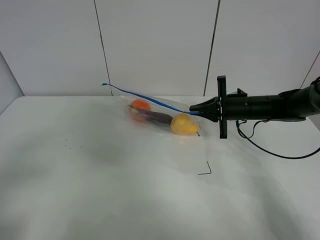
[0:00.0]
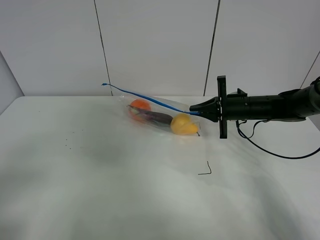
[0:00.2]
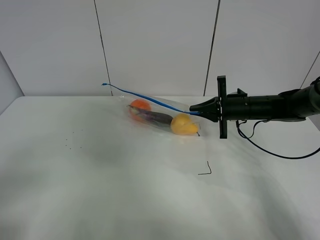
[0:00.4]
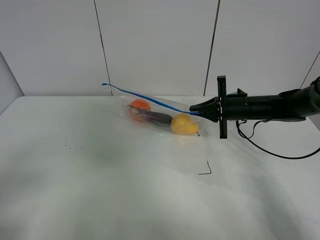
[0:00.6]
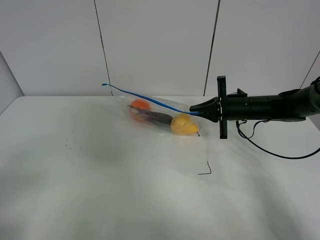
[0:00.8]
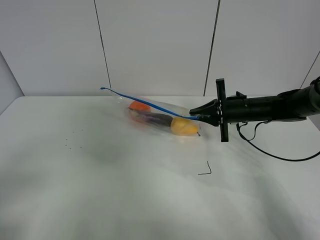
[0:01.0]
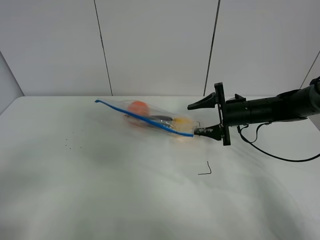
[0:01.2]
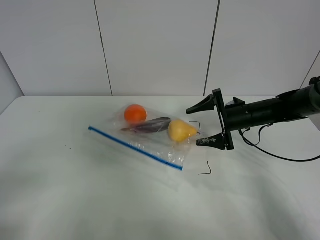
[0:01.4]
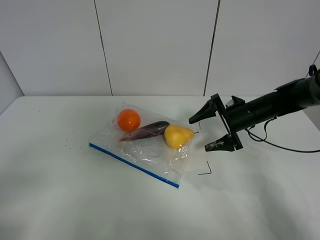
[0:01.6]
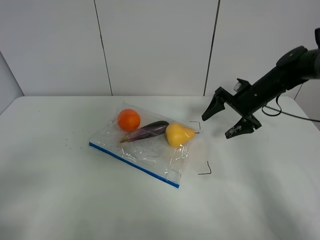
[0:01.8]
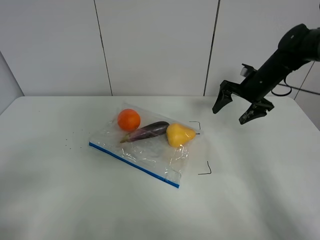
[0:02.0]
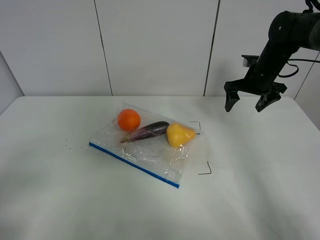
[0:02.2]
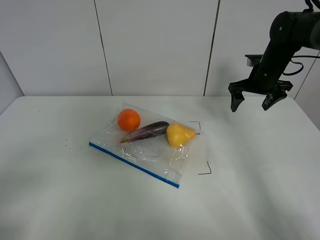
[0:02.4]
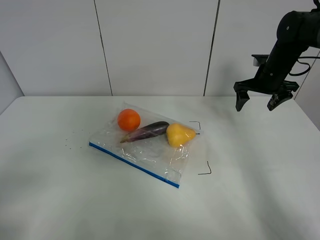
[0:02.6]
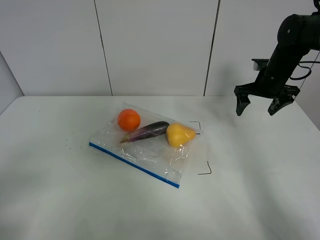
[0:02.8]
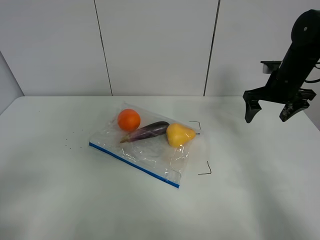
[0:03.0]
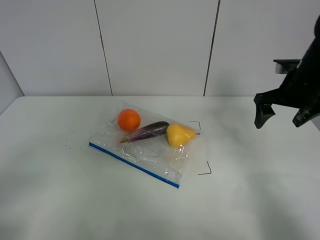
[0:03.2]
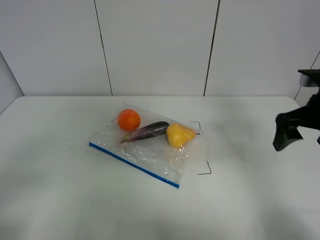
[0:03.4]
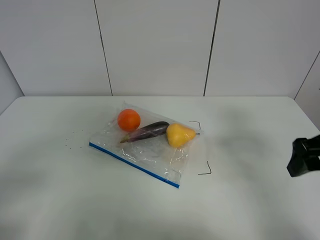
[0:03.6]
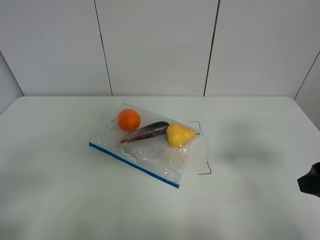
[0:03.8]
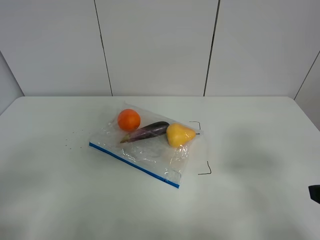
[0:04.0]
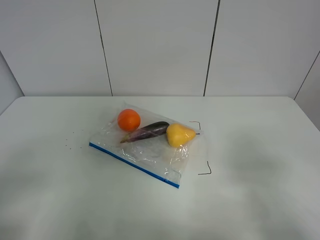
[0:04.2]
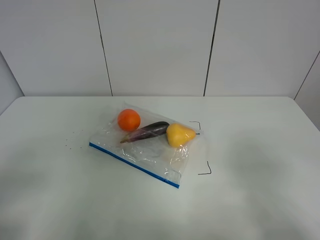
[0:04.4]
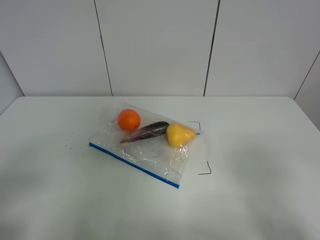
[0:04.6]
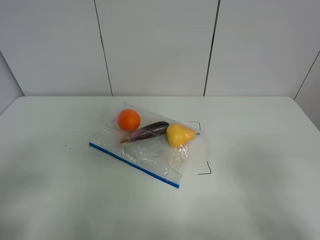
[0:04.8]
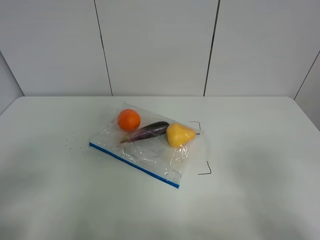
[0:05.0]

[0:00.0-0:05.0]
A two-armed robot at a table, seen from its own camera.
0:00.0 to 0:01.6: The right gripper opens.
0:01.6 to 0:03.4: The right gripper travels backward, upward and to the right by approximately 20 cm.
0:03.4 to 0:05.0: The right gripper goes approximately 25 cm backward.

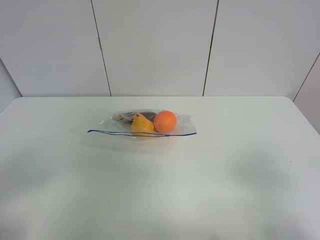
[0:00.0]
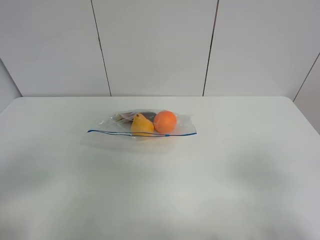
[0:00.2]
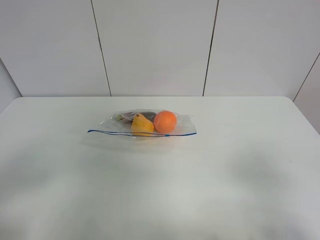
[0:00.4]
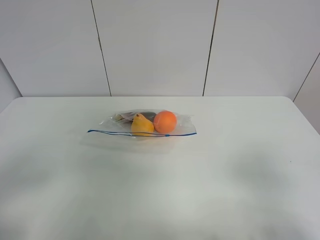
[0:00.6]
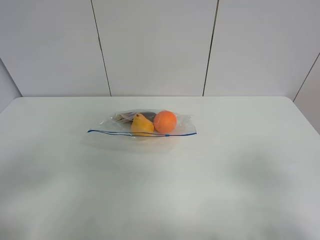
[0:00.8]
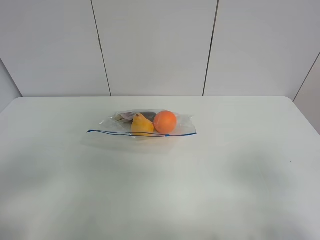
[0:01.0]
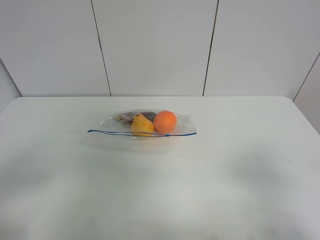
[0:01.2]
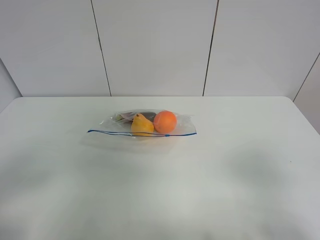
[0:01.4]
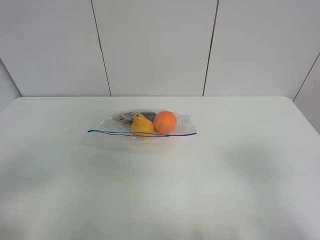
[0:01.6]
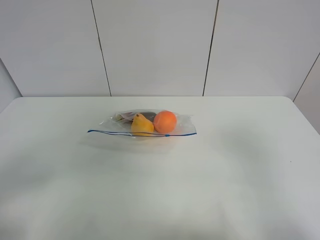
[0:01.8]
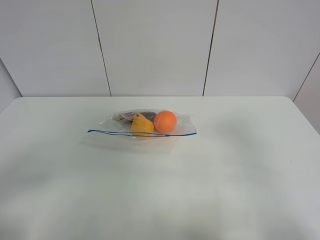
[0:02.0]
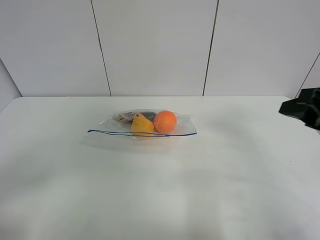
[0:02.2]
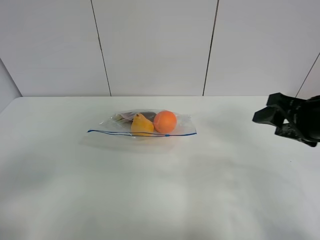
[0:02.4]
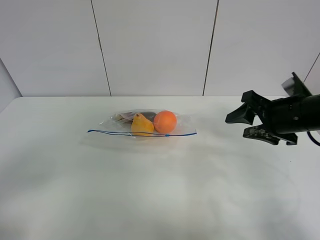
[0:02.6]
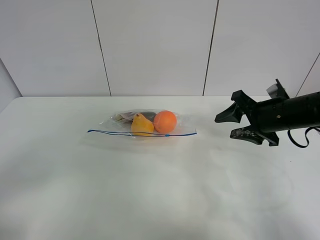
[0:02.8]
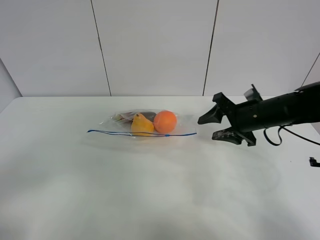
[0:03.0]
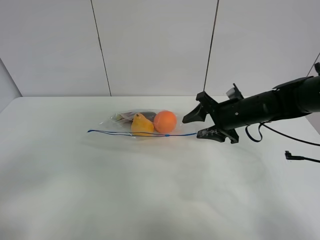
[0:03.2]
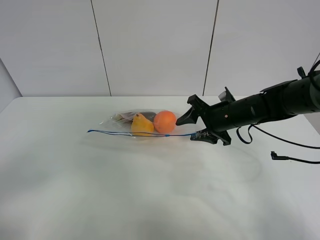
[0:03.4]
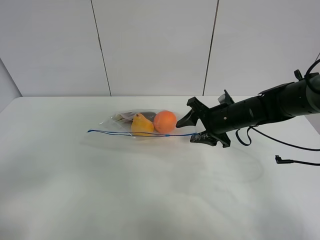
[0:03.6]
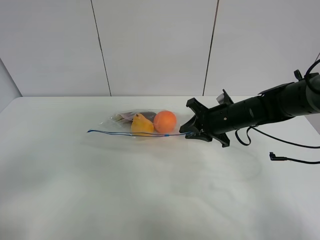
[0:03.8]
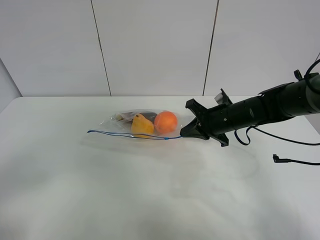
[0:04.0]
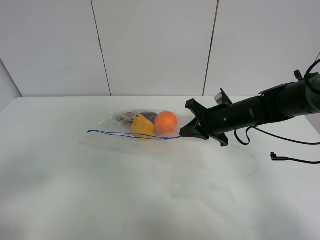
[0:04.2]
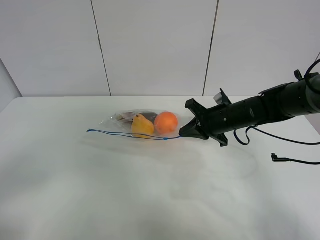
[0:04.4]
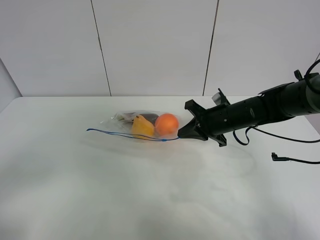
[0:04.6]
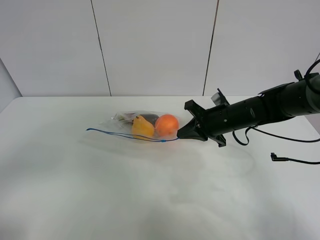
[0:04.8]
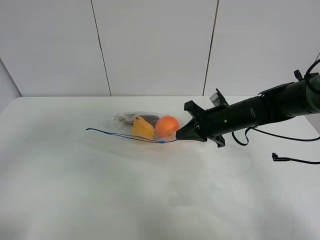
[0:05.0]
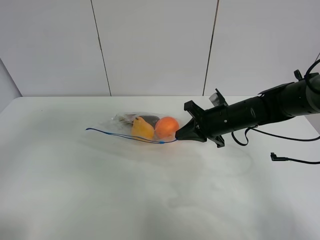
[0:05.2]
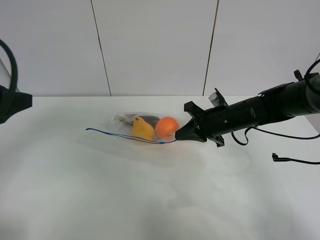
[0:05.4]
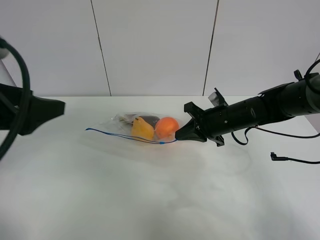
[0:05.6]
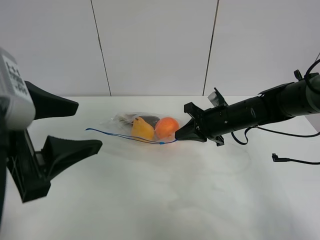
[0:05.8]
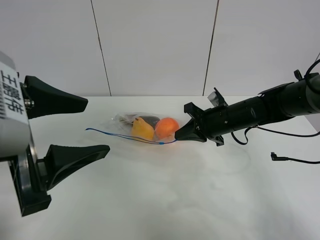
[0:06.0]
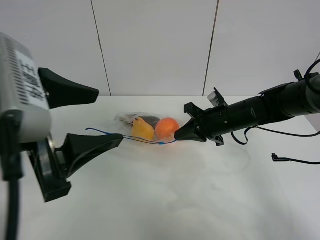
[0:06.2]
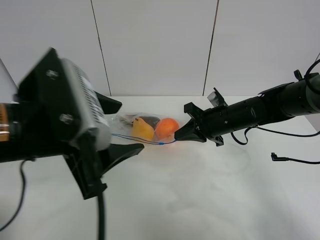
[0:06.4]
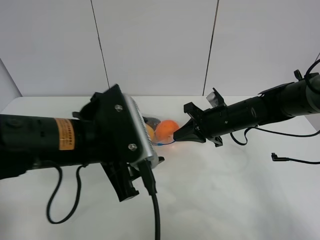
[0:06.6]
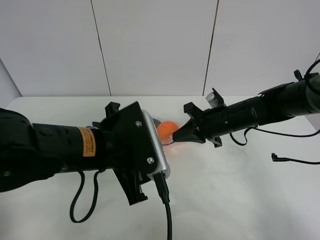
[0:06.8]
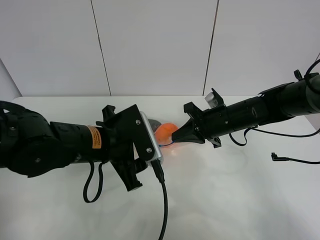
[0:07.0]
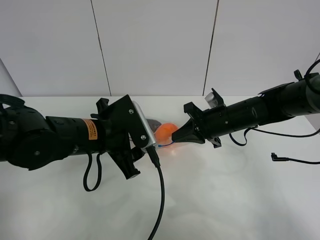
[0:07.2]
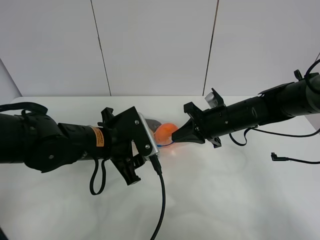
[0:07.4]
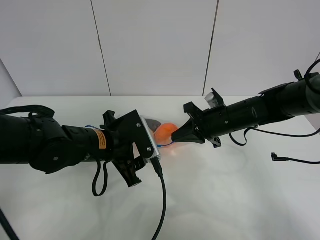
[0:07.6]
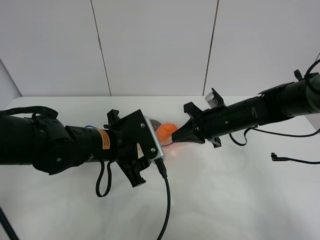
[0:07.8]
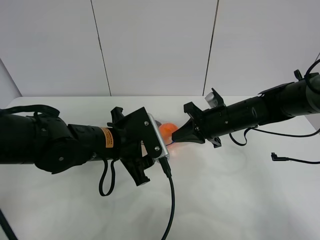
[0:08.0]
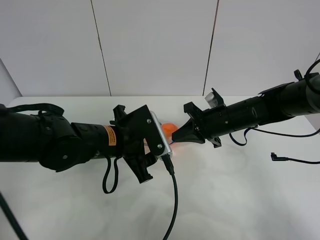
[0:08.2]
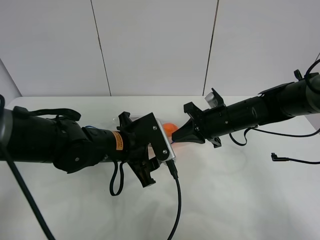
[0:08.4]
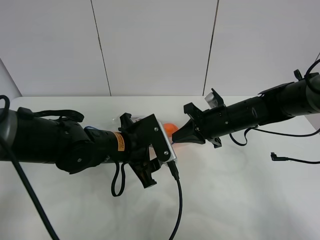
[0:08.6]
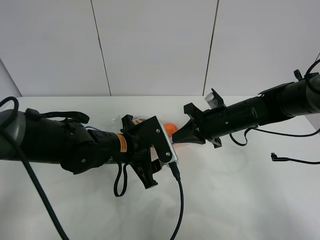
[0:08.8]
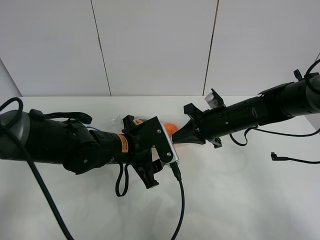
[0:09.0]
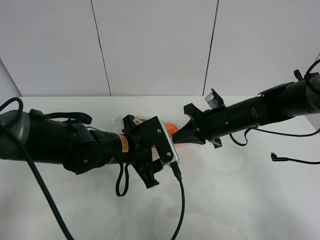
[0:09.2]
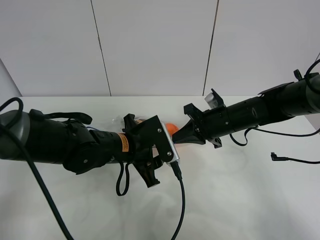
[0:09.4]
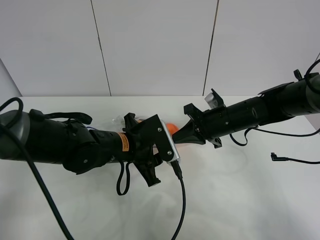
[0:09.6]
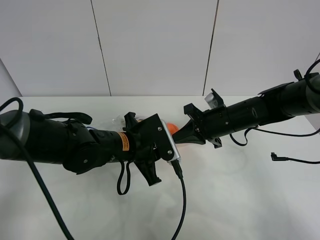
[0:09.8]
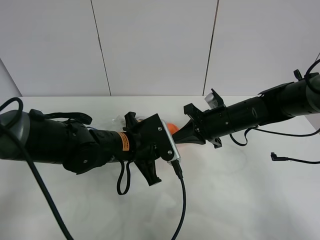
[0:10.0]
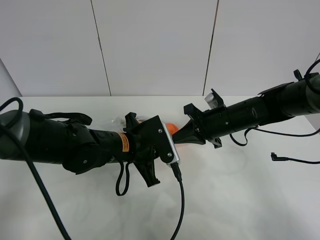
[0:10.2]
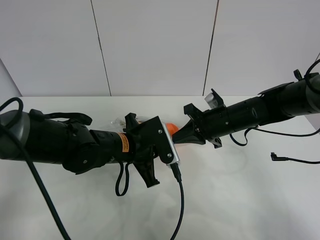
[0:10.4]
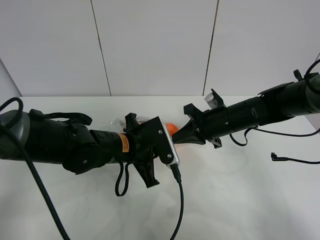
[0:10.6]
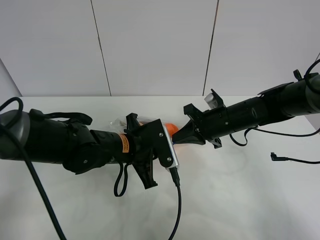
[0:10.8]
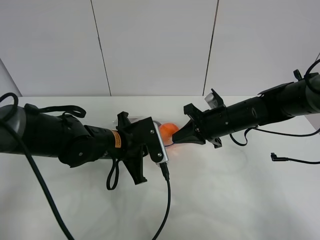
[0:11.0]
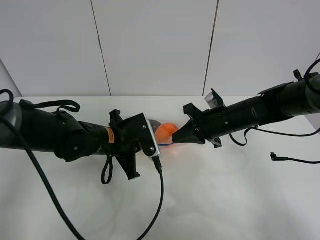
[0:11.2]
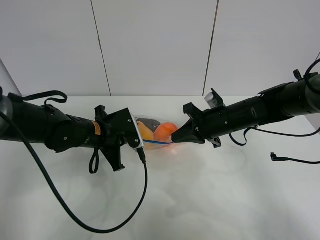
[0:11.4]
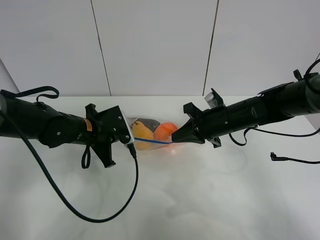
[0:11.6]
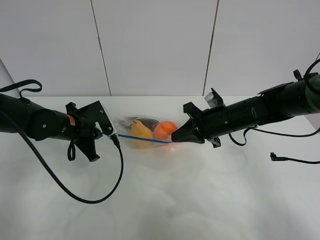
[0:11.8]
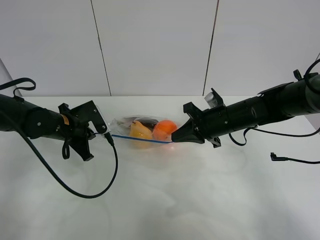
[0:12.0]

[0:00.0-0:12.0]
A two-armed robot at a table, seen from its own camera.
Step, 0:00.0 to 0:04.0: Grasp the fruit bag with right gripper.
0:01.6 to 0:03.0: The right gripper is displaced forward by approximately 30 cm.
0:03.0 to 0:04.4: The right gripper changes place by roughly 5 cm, and closes its fingers.
0:04.4 to 0:06.0: The left gripper is displaced to the right, forward and upward by about 20 cm.
0:06.0 to 0:07.6: The left gripper moves downward, forward and to the right, some 20 cm.
0:07.6 to 0:09.0: The grippers stay close to where they were, moving slightly.
0:09.0 to 0:10.4: The left gripper closes.
0:10.4 to 0:12.0: The left gripper heads to the left and forward, covering about 20 cm.

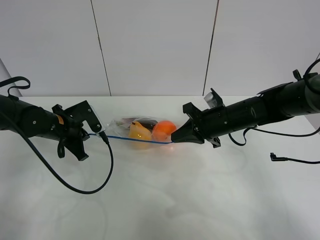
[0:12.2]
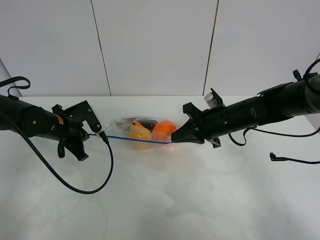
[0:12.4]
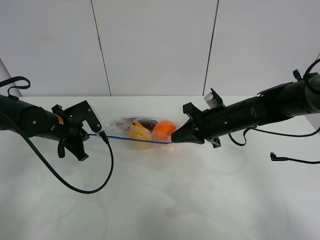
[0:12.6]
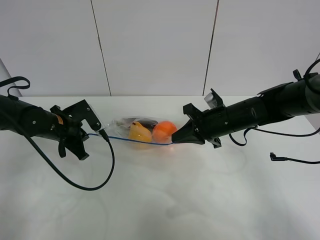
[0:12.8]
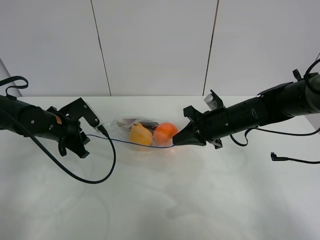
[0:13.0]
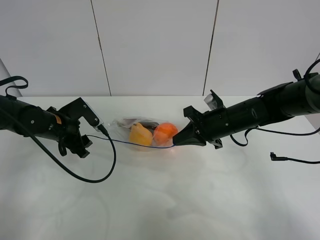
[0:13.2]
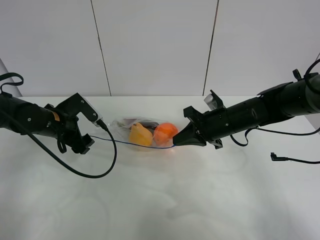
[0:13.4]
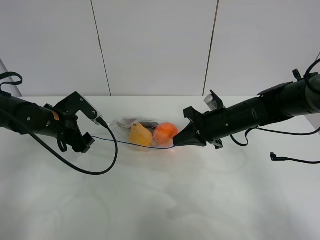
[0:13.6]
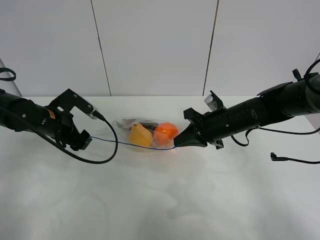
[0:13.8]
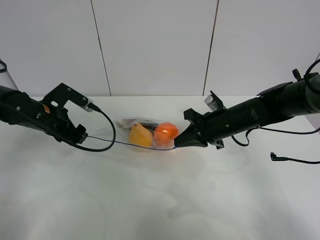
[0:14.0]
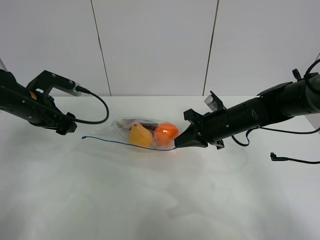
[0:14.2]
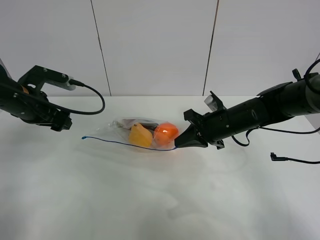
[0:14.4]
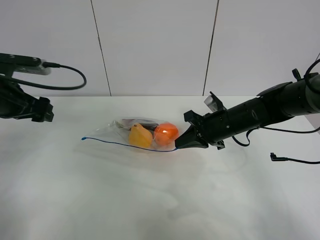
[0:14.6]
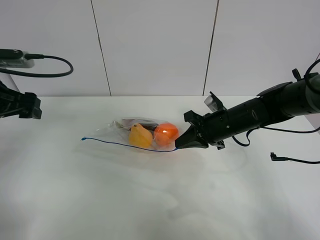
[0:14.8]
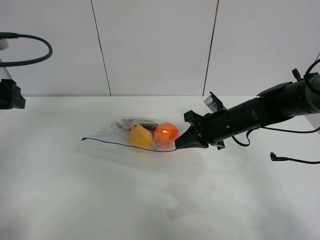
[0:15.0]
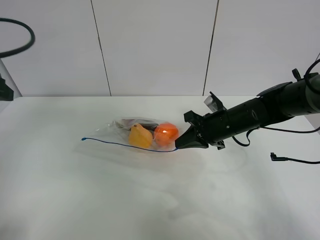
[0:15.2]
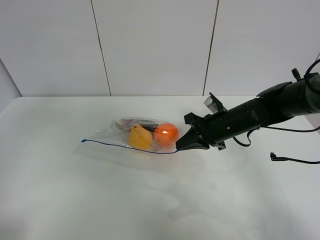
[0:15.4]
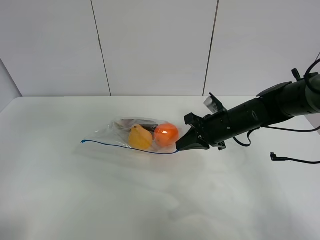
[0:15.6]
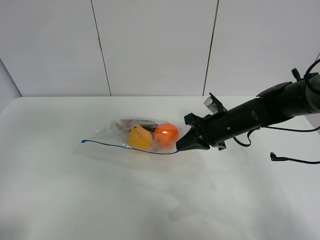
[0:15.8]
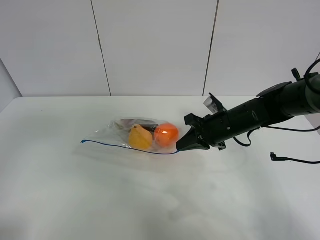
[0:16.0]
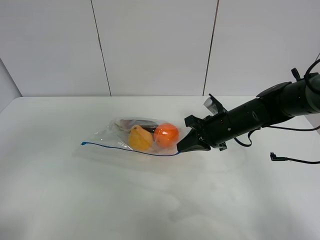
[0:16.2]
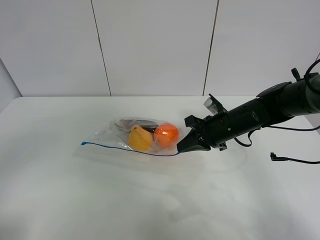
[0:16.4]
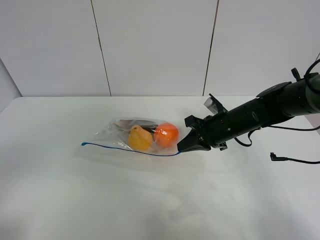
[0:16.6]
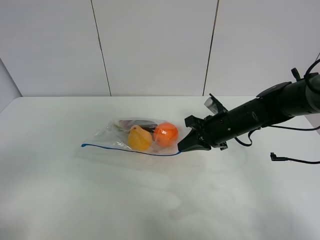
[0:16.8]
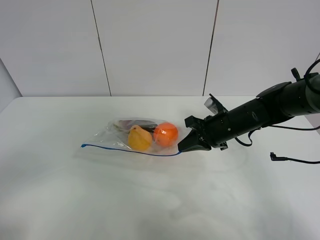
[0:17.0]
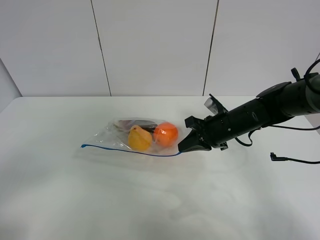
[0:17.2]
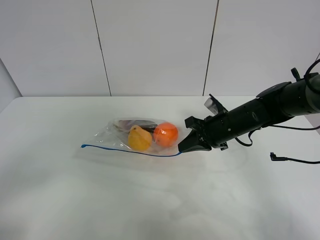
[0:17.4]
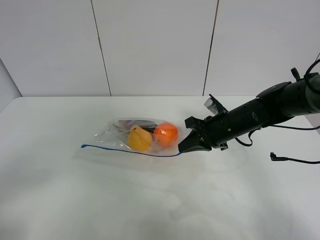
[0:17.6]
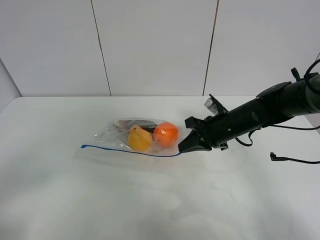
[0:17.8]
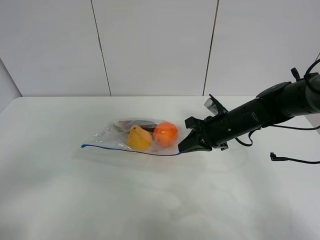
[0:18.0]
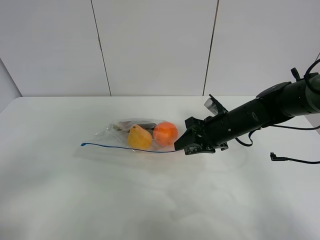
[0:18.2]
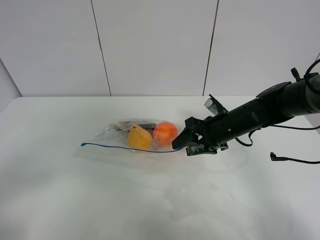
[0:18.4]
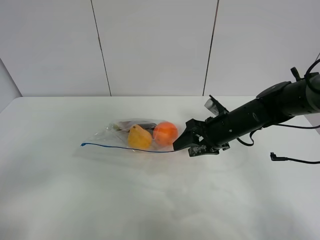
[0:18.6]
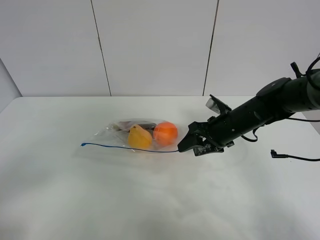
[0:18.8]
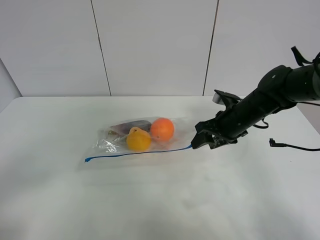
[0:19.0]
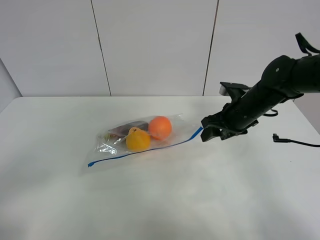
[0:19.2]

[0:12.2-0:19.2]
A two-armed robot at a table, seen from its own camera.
0:12.2 to 0:13.6: The left gripper opens.
0:13.6 to 0:15.0: The left gripper heads upward, backward and to the left, covering some 20 cm.
0:15.0 to 0:16.4: The left gripper is displaced backward by some 25 cm.
0:16.4 to 0:17.8: The left gripper moves downward, about 10 cm.
0:17.8 to 0:19.2: The right gripper moves roughly 5 cm, and opens its fingers.
